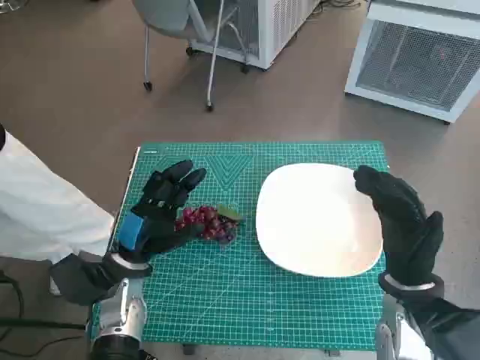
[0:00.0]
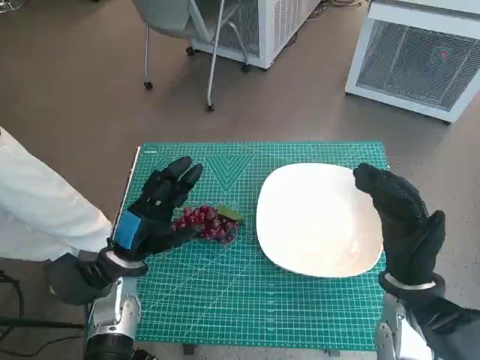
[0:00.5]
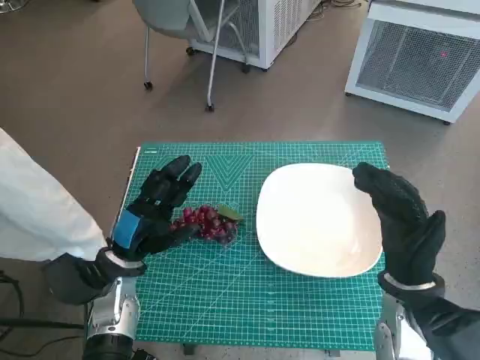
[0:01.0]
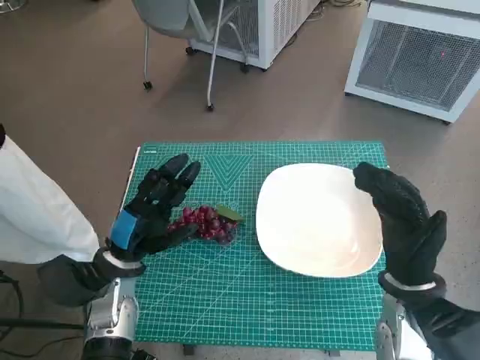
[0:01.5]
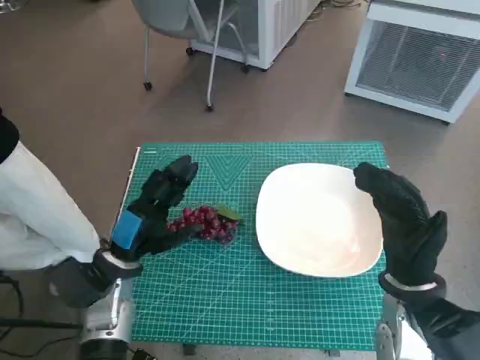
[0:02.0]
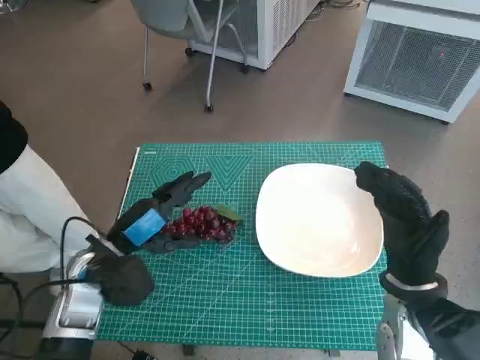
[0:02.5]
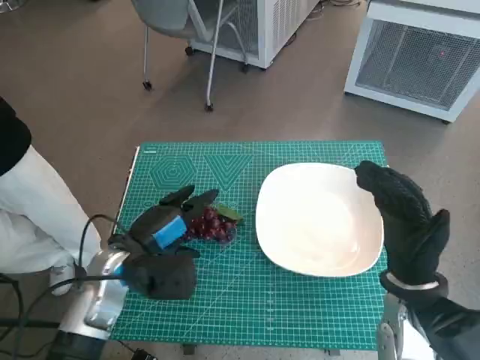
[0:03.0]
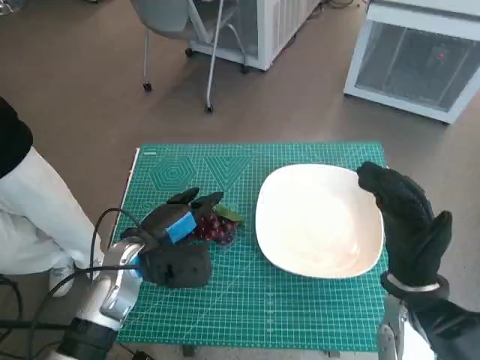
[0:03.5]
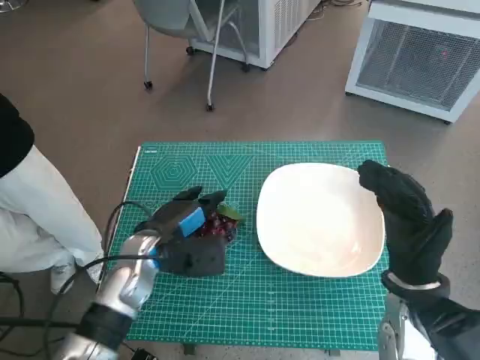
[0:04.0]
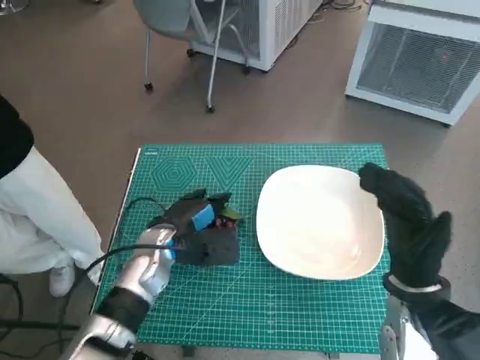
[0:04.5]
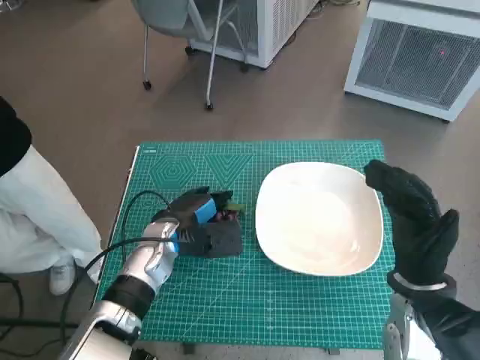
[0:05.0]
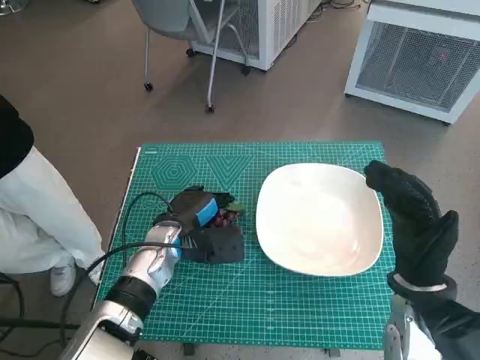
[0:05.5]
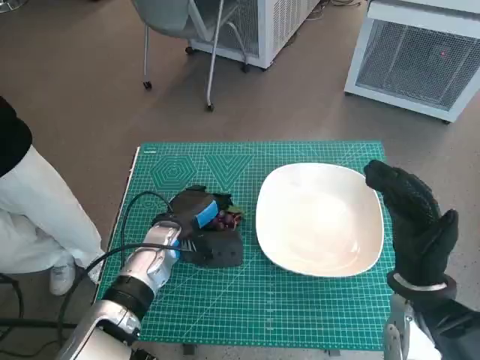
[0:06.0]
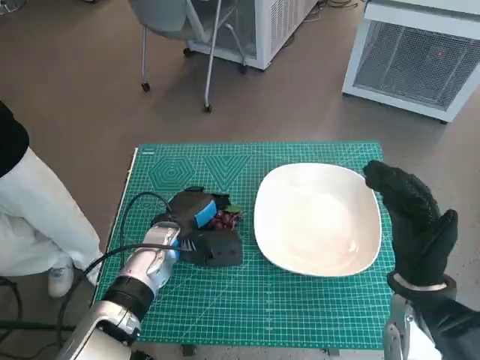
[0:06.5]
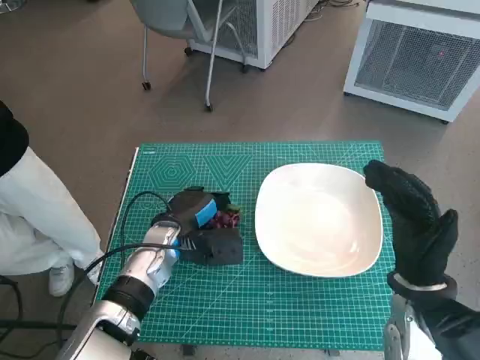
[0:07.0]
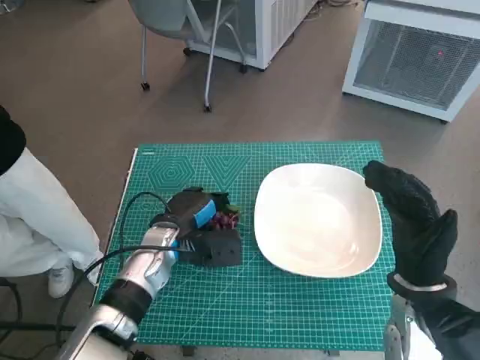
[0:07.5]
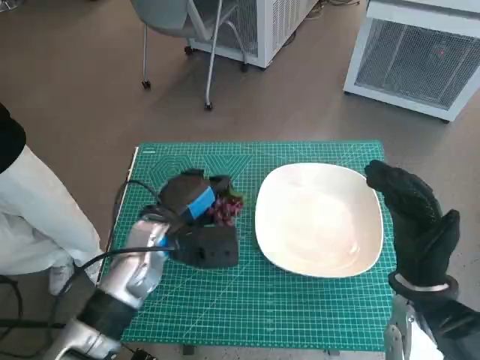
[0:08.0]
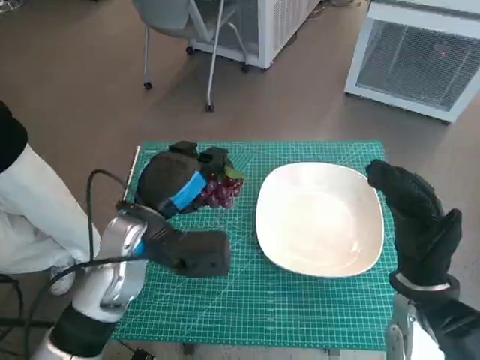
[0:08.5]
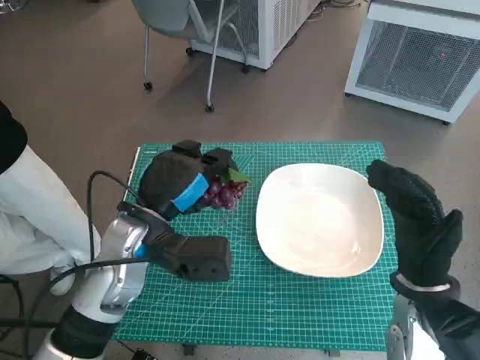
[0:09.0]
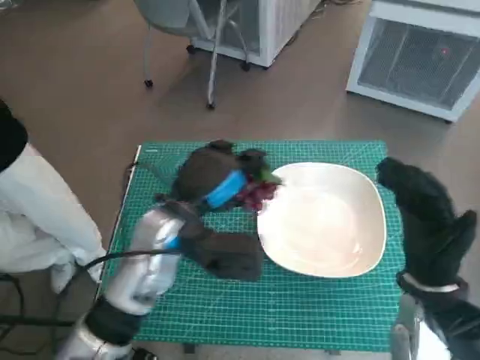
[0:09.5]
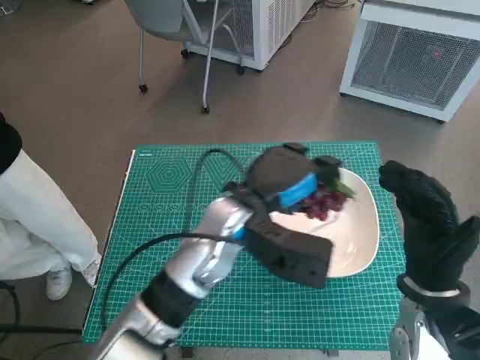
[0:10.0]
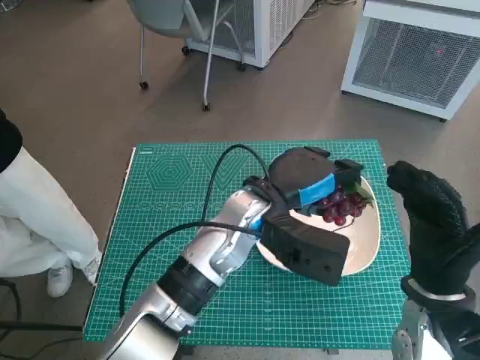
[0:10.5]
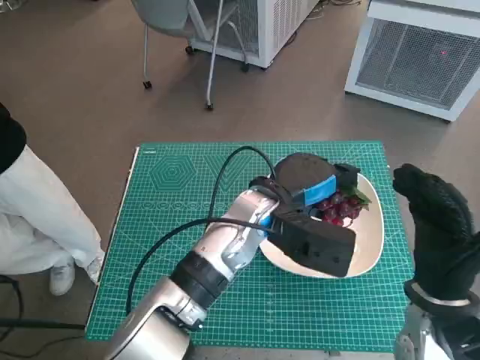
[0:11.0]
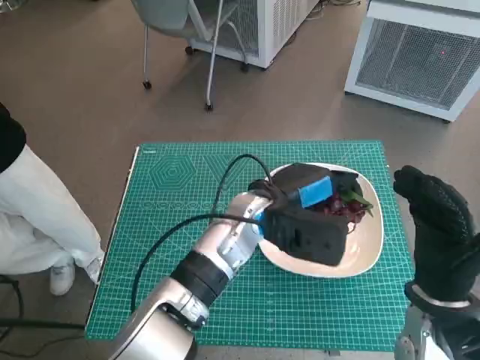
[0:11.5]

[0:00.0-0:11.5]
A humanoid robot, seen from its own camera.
Task of the whole recording: Pick up the grapes and put them on the plate.
Step, 0:00.0 to 0:05.5: Grasp the grapes with left hand.
0:02.0 to 0:04.0: The left hand moves approximately 5 cm.
0:04.0 to 0:06.0: The hands move only a little.
0:06.0 to 0:07.5: The two hands keep their place.
0:07.5 to 0:09.5: The left hand heads upward, covering some 10 cm.
0:09.5 to 0:11.5: The left hand heads to the right, covering approximately 10 cm.

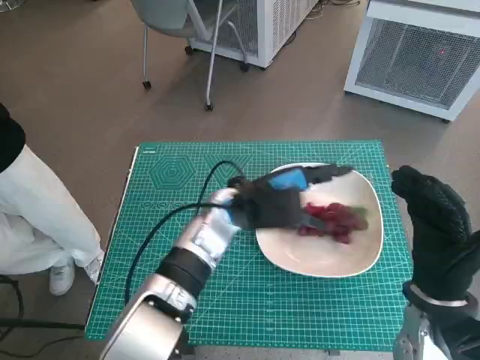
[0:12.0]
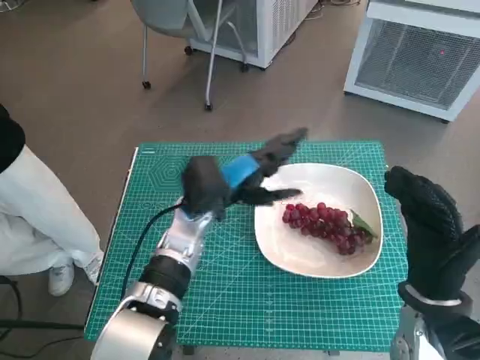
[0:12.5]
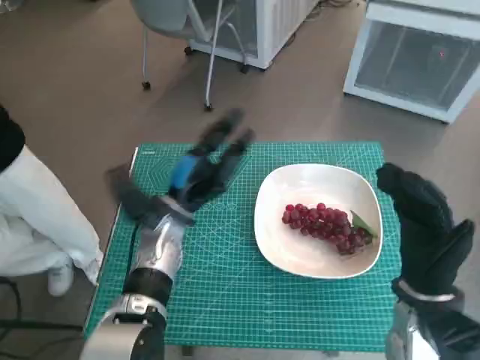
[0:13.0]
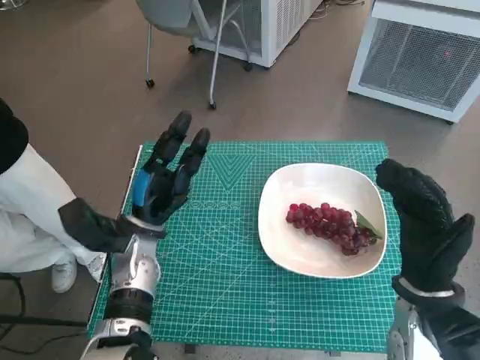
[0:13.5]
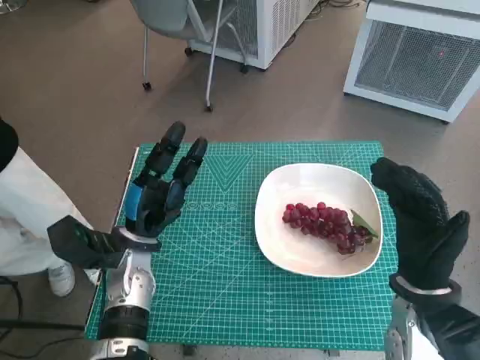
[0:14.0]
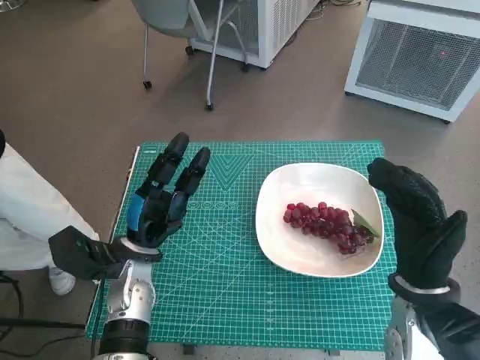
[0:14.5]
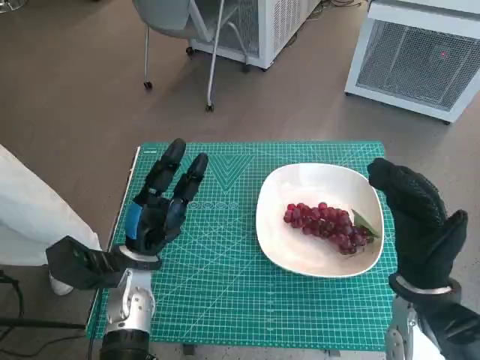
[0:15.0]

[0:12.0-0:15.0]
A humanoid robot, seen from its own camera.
Task of the whole recording: Pick up the grapes and put them on the plate.
0:12.0 to 0:13.5: The left hand travels to the left and downward by about 15 cm.
0:13.5 to 0:15.0: The hands move only a little.

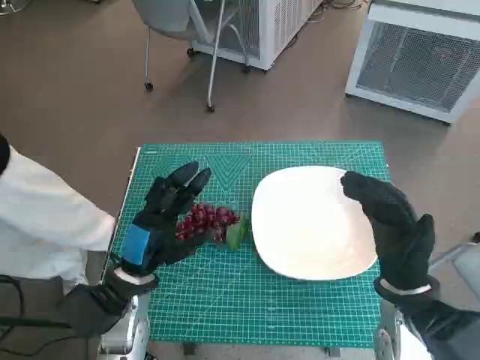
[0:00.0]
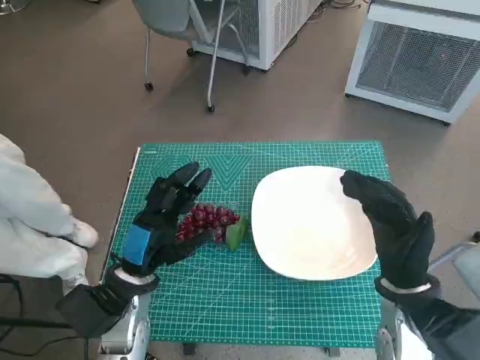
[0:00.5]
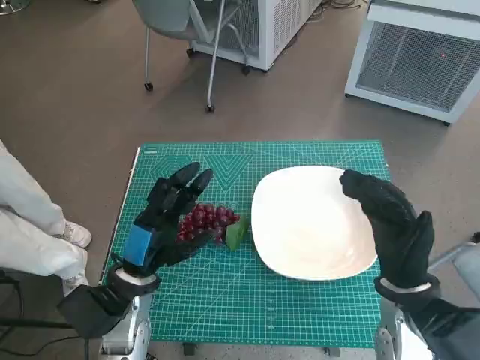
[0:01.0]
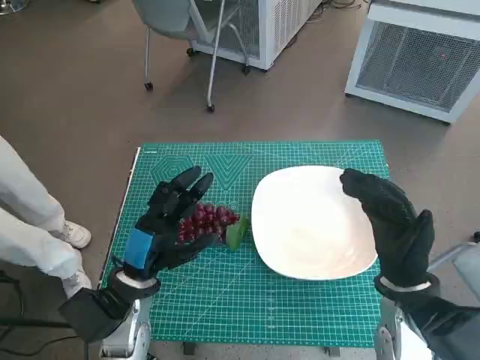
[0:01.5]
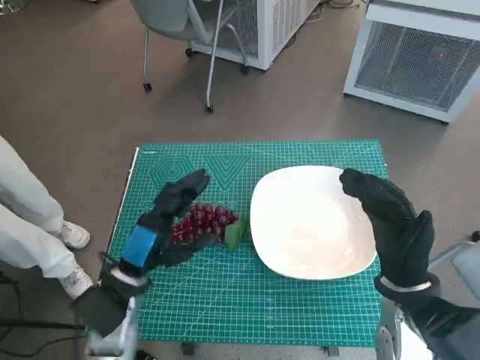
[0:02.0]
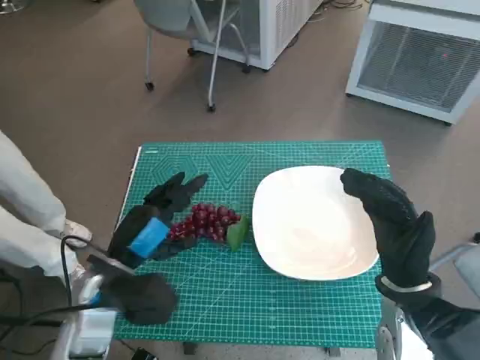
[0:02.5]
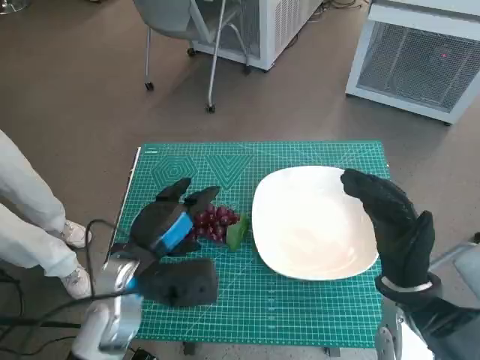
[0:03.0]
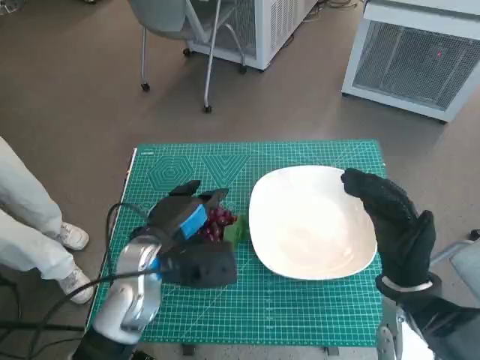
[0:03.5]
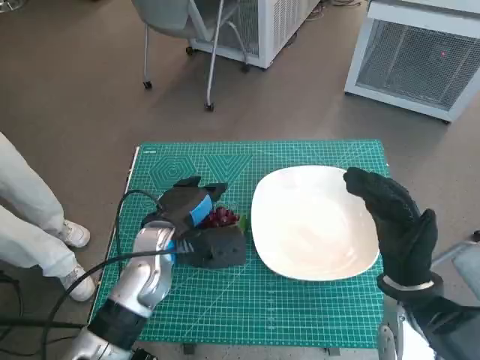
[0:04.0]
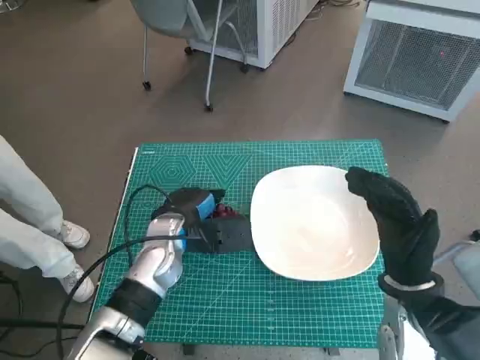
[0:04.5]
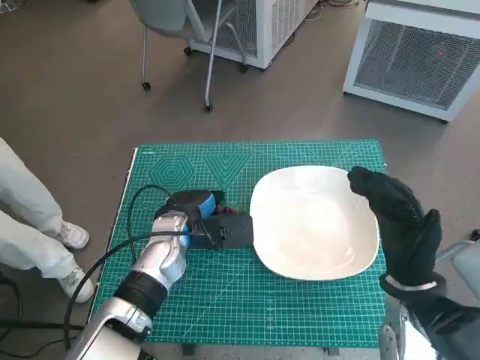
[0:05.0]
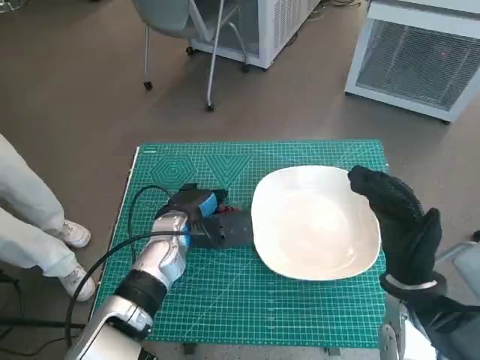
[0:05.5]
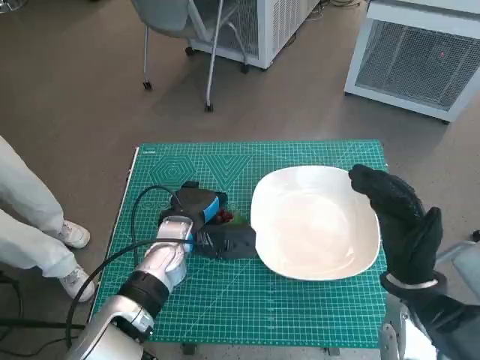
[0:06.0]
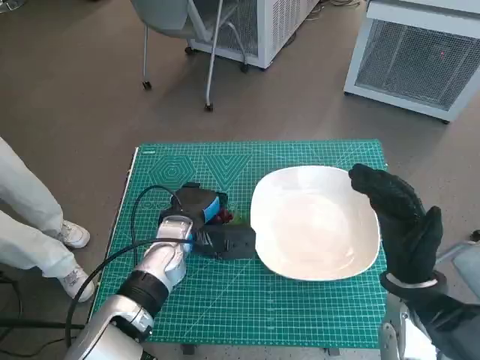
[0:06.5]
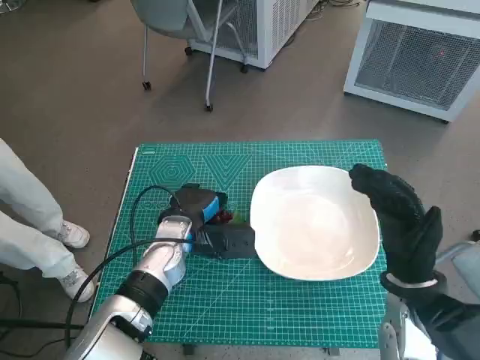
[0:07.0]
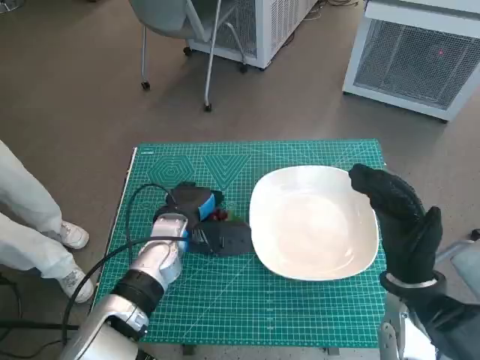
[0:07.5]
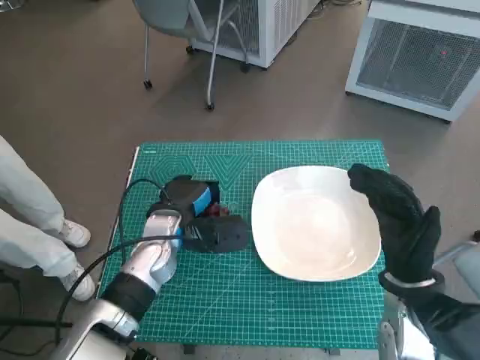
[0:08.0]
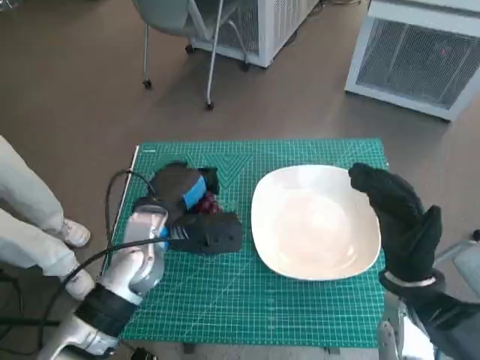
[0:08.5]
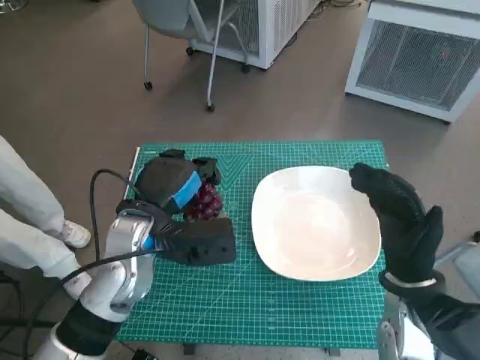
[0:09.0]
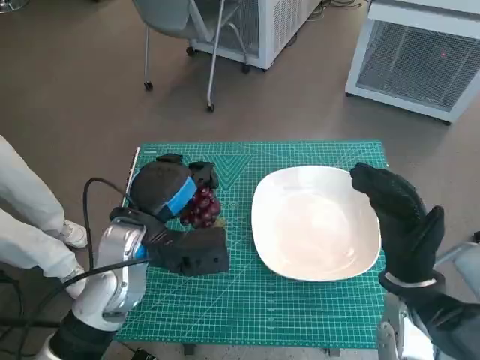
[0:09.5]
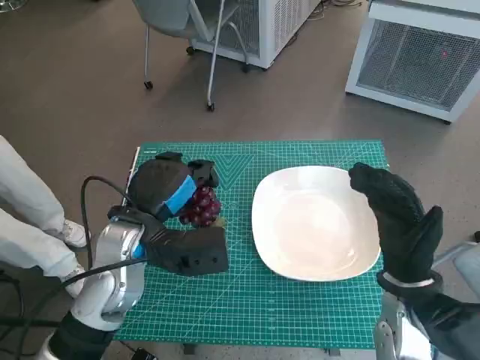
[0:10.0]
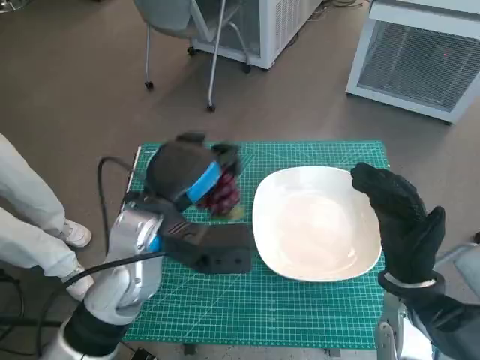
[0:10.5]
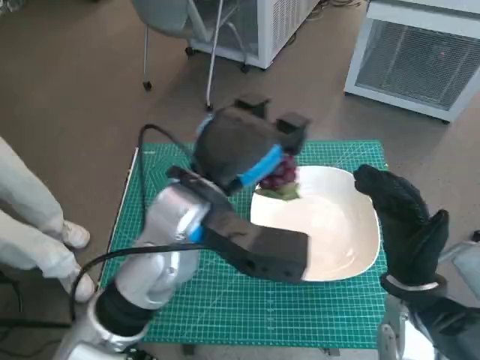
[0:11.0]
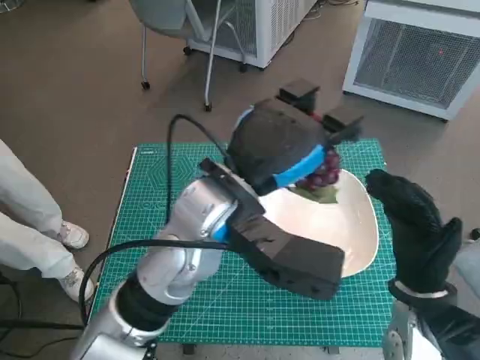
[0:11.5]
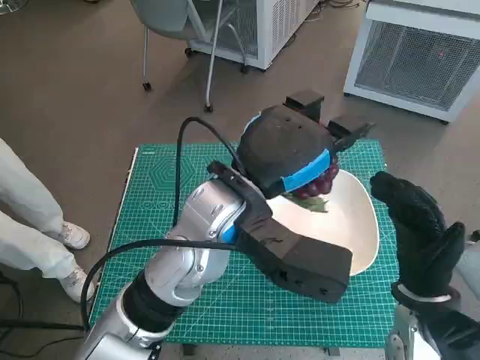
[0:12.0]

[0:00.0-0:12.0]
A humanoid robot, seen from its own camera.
Task of the whole recording: Pick up the grapes and put them on the plate.
Step, 0:00.0 to 0:07.0: Grasp the grapes with left hand.
0:02.0 to 0:04.0: The left hand is displaced forward by roughly 5 cm.
0:04.0 to 0:06.0: The left hand ends up approximately 5 cm from where it was.
0:06.0 to 0:08.0: The hands stay close to where they were, moving slightly.
0:08.0 to 0:10.0: The left hand shifts some 10 cm upward and backward.
0:10.0 to 0:12.0: The left hand heads to the right and upward, covering roughly 15 cm.
